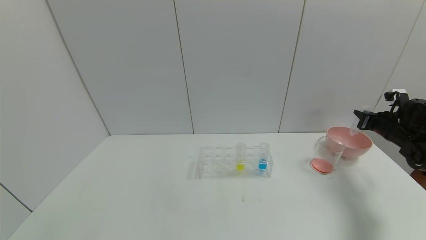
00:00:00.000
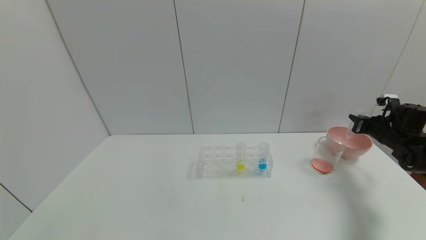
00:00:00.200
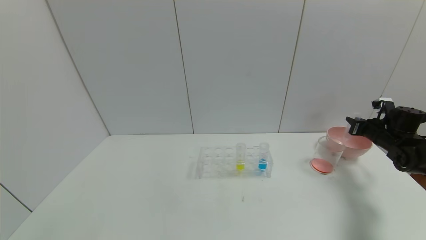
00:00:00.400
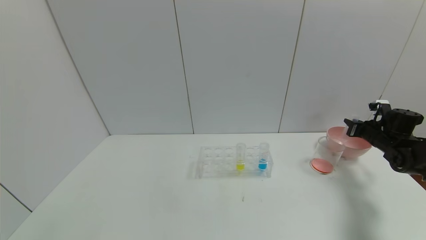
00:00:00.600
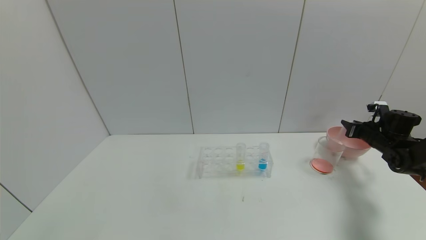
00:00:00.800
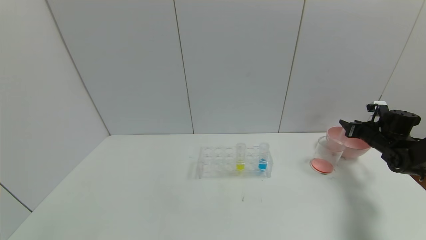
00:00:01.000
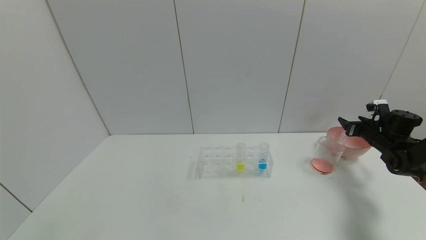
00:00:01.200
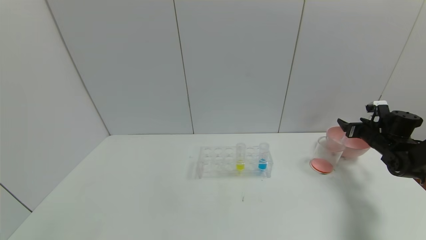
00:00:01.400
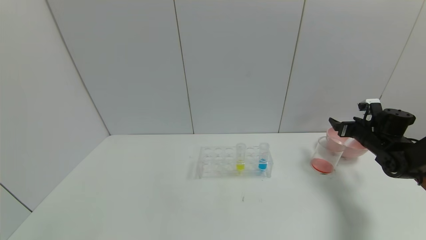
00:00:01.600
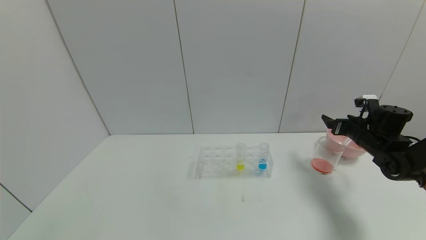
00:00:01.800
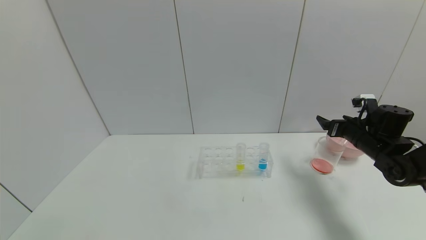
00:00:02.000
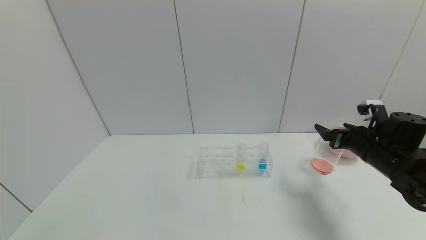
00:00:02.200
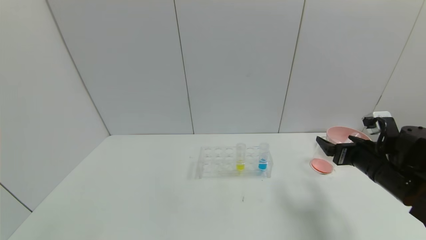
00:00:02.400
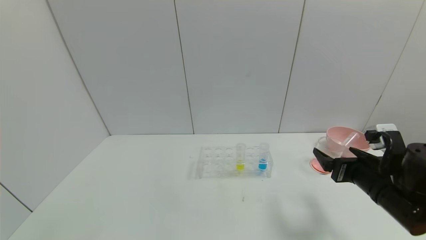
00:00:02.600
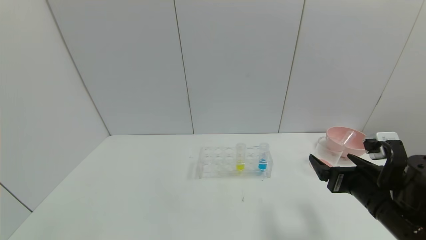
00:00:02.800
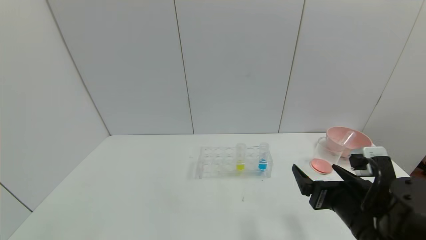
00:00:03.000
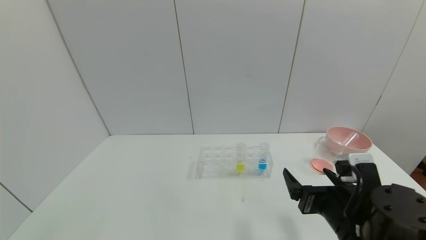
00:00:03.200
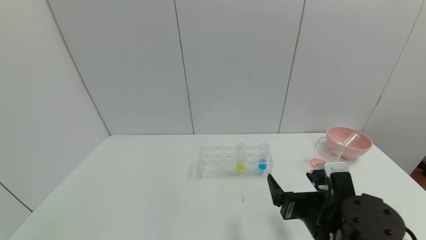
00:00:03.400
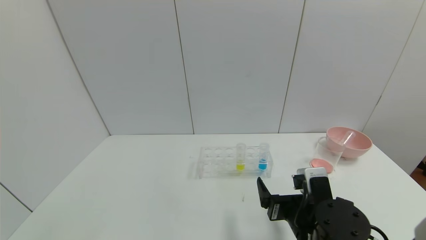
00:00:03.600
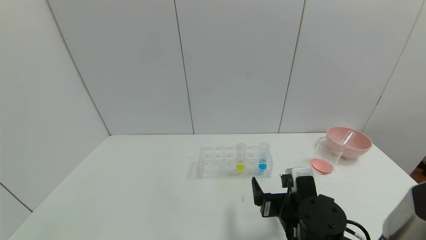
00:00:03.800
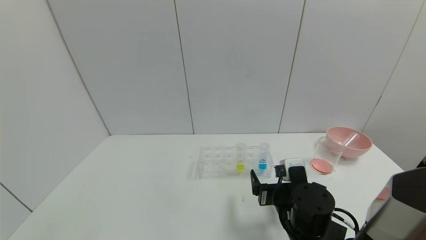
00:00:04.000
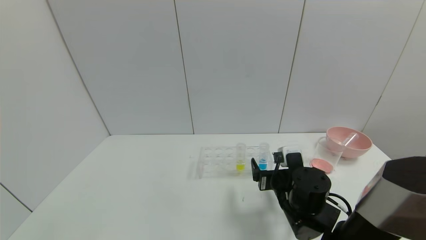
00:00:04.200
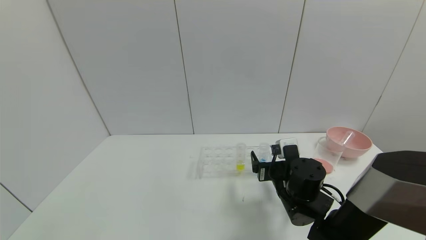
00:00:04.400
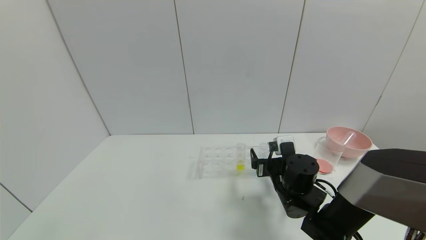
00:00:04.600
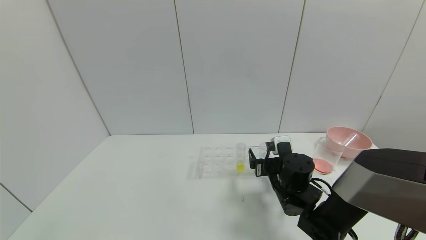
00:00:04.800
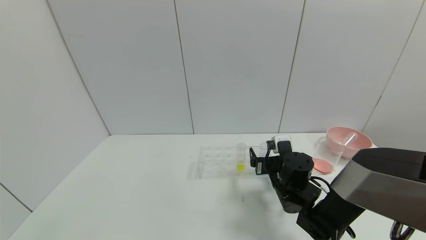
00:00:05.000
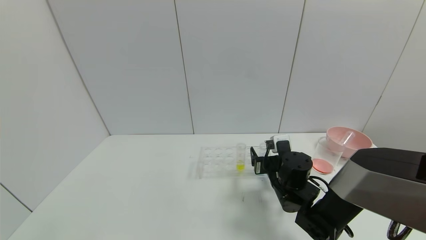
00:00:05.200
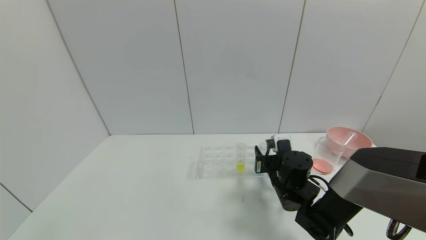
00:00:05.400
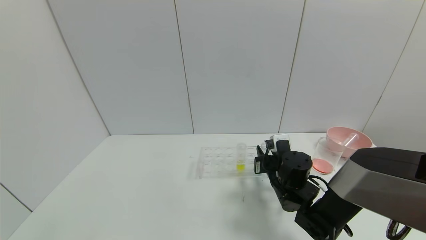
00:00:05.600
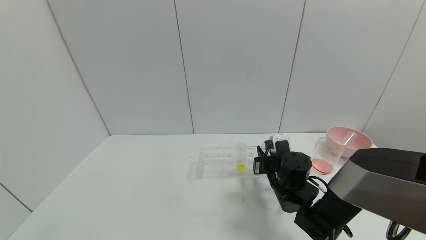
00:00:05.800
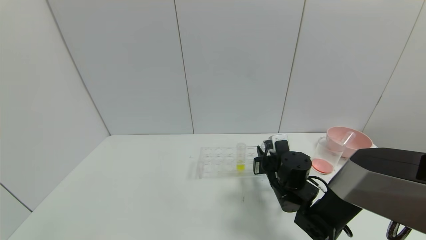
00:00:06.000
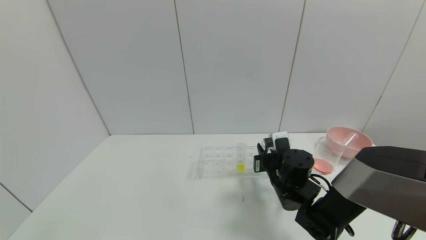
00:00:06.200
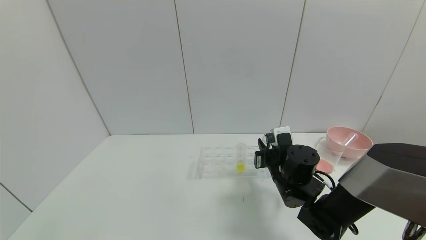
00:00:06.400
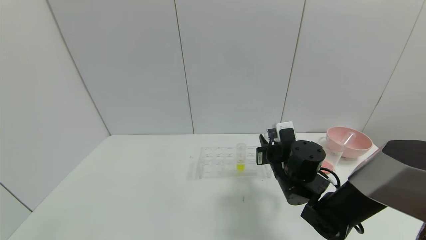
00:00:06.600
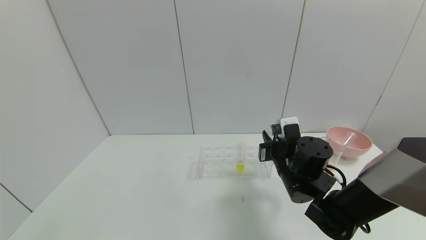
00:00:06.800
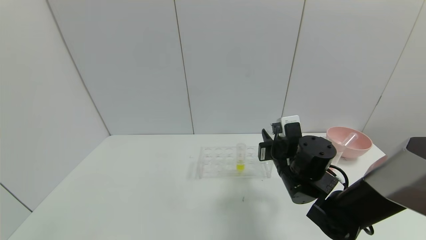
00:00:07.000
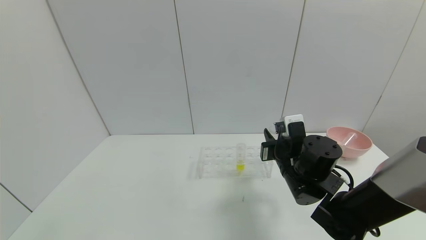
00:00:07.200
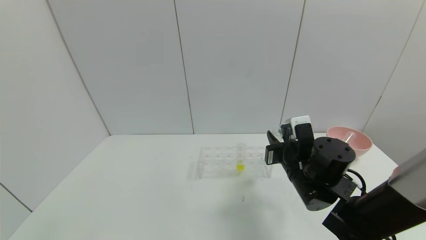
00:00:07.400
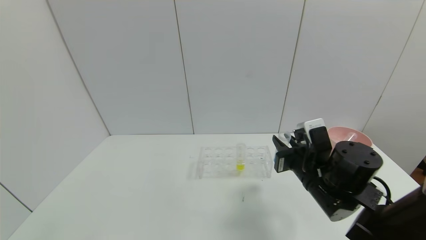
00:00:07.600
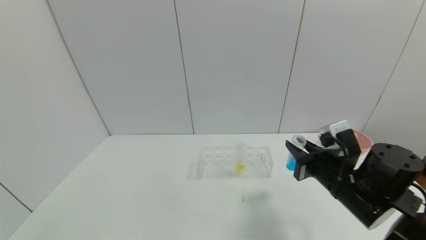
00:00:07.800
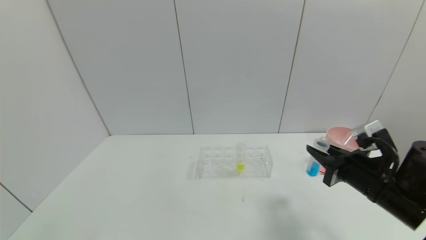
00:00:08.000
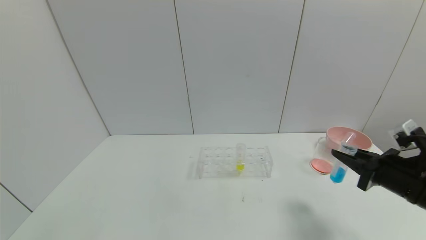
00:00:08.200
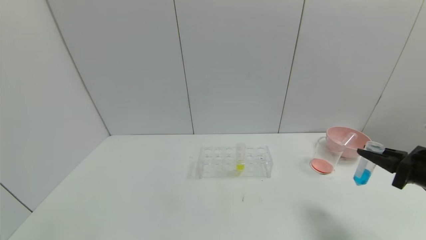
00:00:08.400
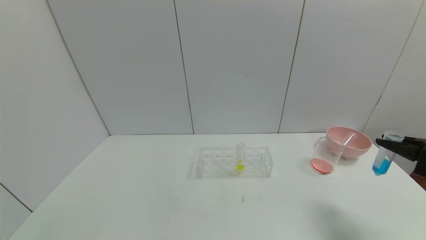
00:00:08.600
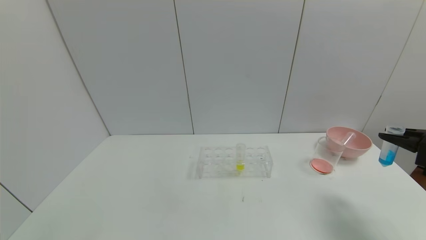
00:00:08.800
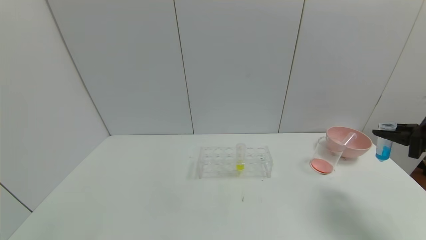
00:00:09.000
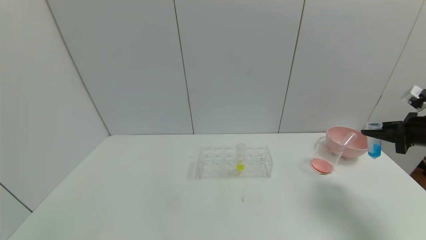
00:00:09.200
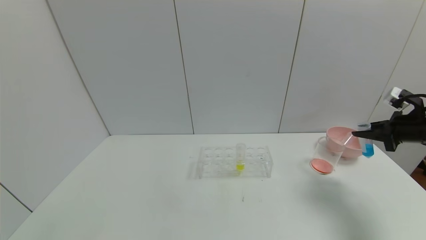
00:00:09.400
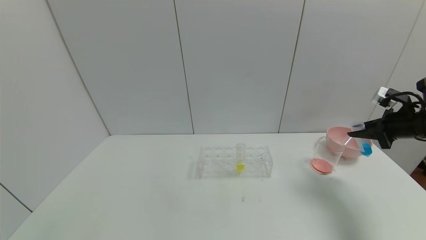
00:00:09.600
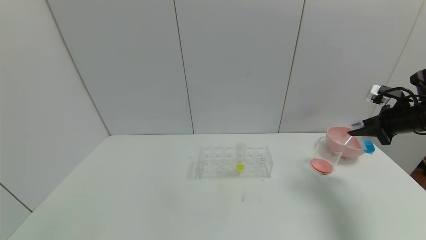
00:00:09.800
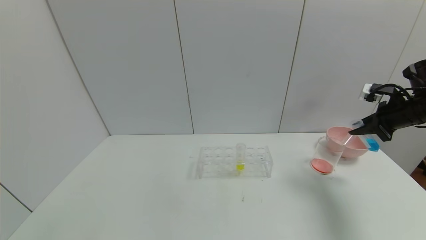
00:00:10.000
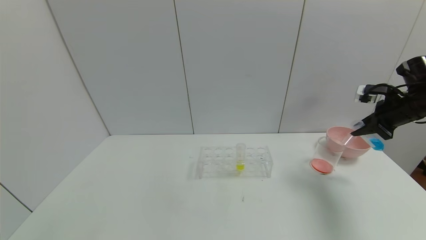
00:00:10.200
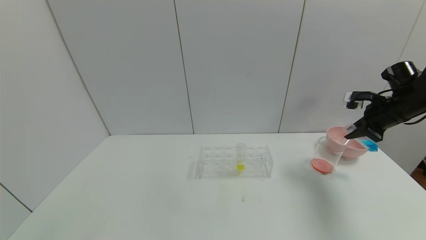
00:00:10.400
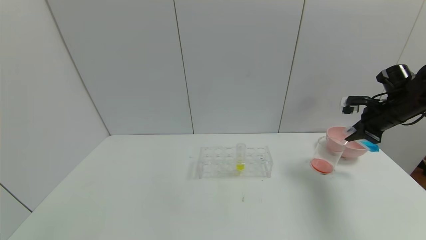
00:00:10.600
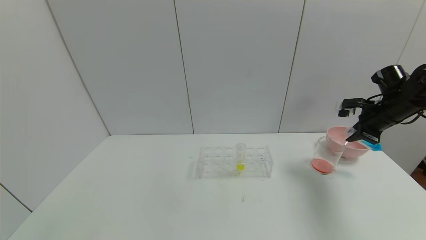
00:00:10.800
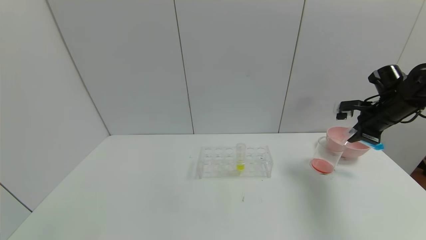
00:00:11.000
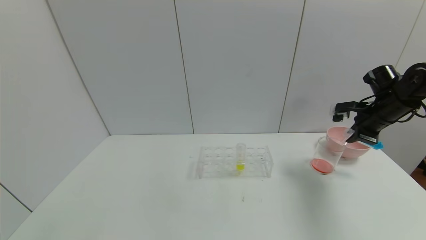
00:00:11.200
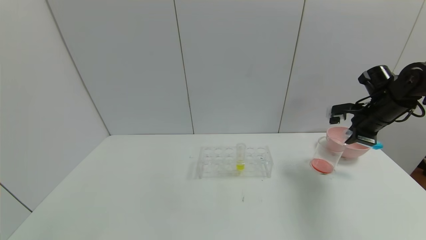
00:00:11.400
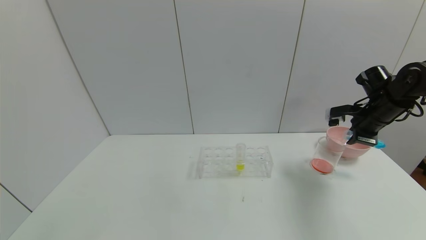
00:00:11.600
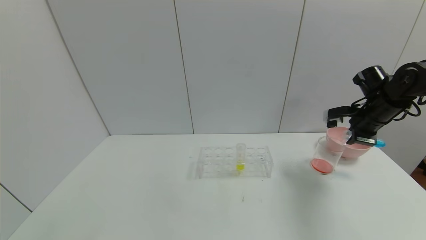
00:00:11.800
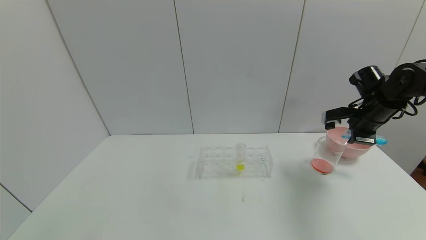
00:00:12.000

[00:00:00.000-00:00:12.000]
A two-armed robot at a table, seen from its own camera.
Task of the whole recording: pick up the test tube with red pigment and the test tube with blue pigment by grippers and pour them into the container.
Step, 00:00:00.000 to 00:00:03.000: Place the test tube into the bowl with right gripper.
Step, 00:00:03.200 to 00:00:07.800: Pick up the test tube containing the blue reagent with right gripper.
00:00:00.000 to 00:00:01.600: The right gripper ends up roughly 5 cm from where it was, and opens up.
00:00:01.600 to 00:00:03.000: The right gripper shifts approximately 30 cm backward and to the left.
00:00:03.000 to 00:00:04.400: The right gripper moves forward, to the left and downward, some 15 cm.
00:00:04.400 to 00:00:06.000: The right gripper closes.
00:00:06.000 to 00:00:07.600: The right gripper shifts roughly 10 cm upward and backward.
00:00:07.600 to 00:00:09.000: The right gripper heads to the right, covering some 25 cm.
00:00:09.000 to 00:00:10.400: The right gripper moves forward, roughly 10 cm.
00:00:10.400 to 00:00:12.000: The right gripper heads to the left, covering about 5 cm.

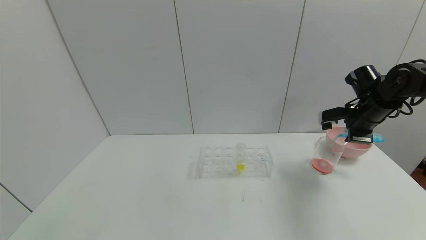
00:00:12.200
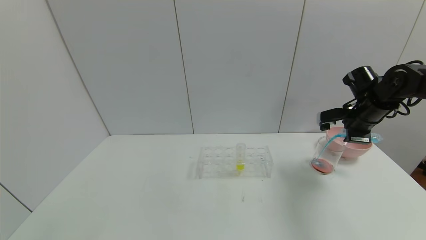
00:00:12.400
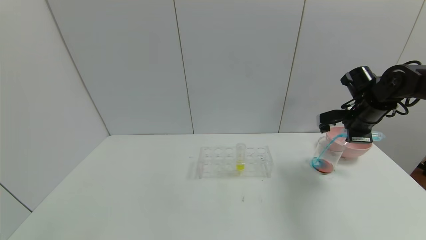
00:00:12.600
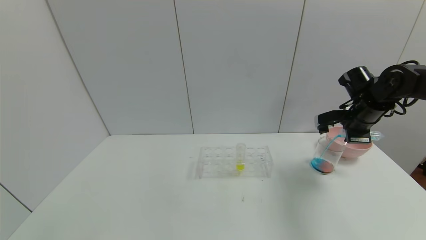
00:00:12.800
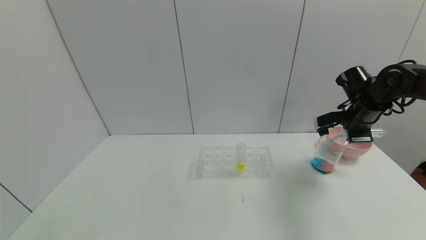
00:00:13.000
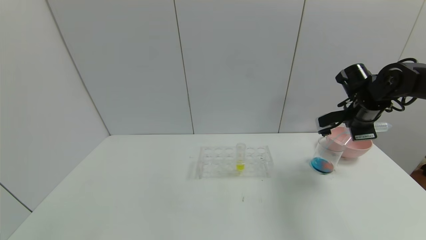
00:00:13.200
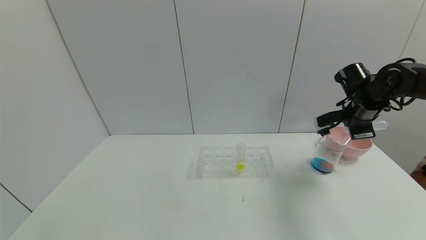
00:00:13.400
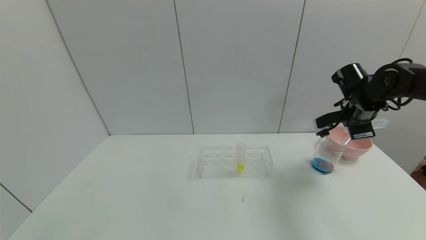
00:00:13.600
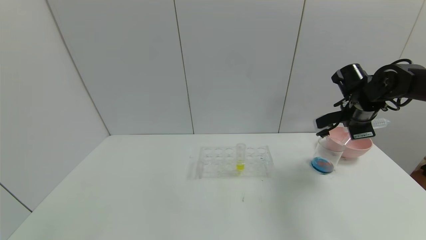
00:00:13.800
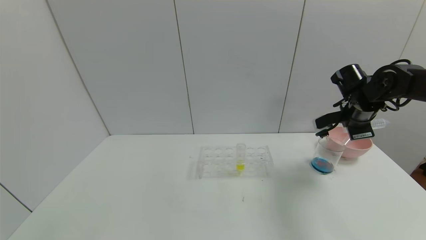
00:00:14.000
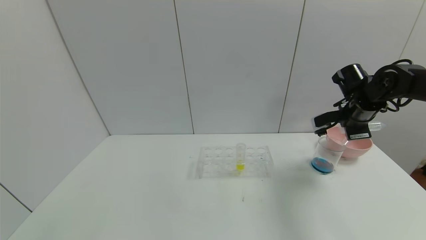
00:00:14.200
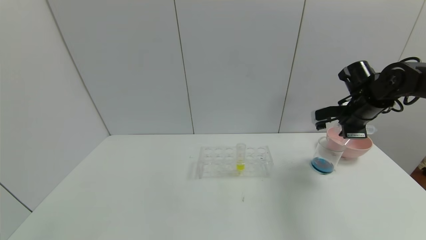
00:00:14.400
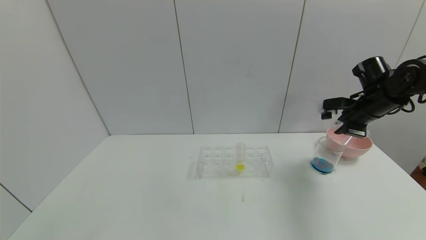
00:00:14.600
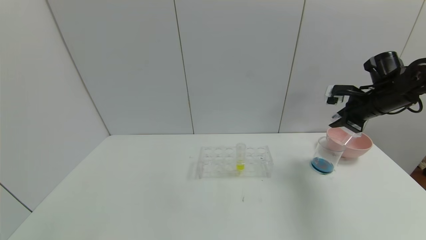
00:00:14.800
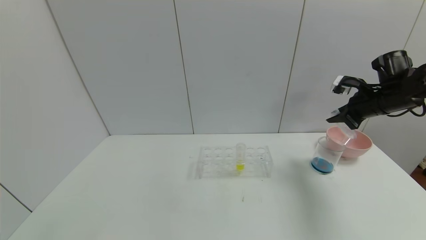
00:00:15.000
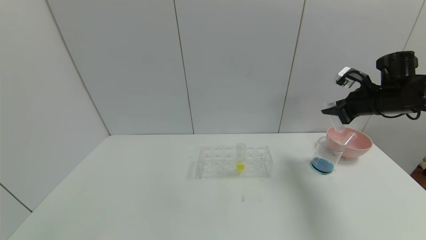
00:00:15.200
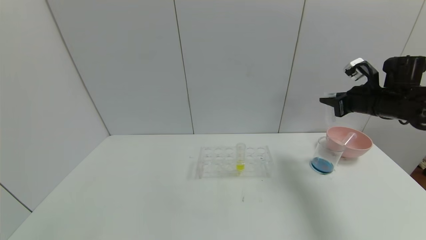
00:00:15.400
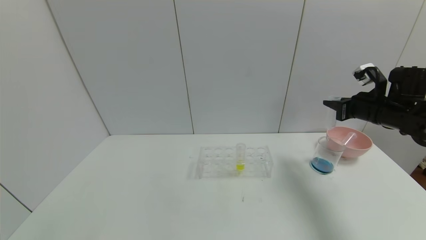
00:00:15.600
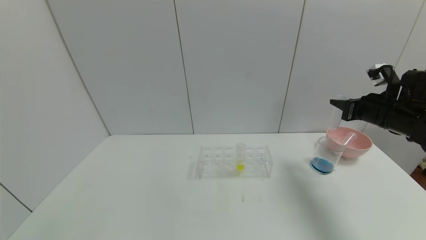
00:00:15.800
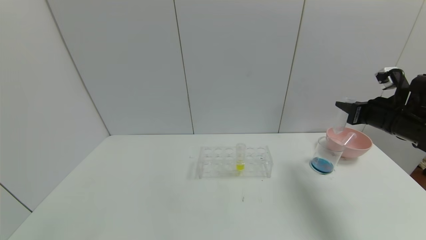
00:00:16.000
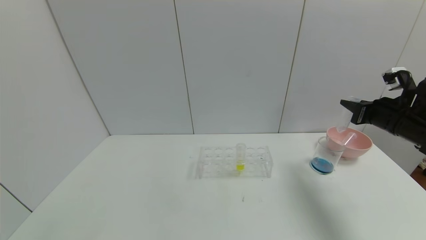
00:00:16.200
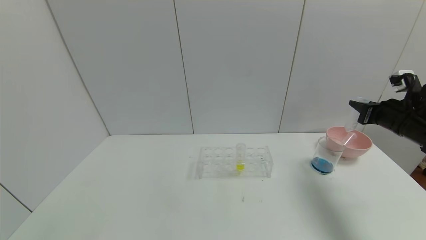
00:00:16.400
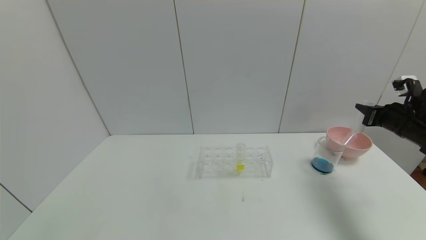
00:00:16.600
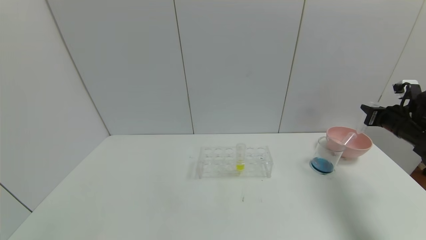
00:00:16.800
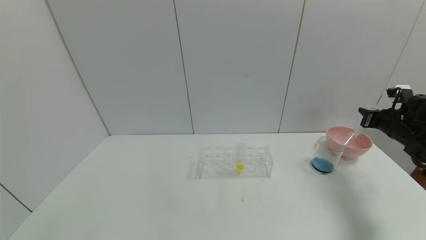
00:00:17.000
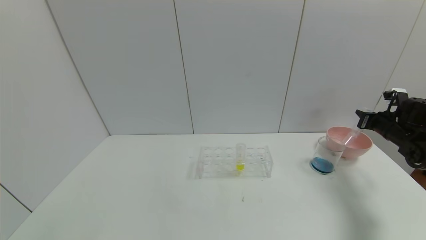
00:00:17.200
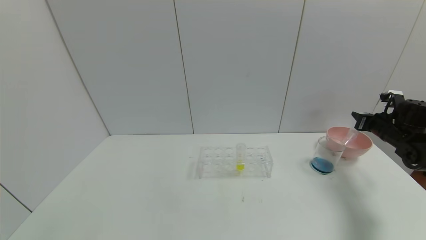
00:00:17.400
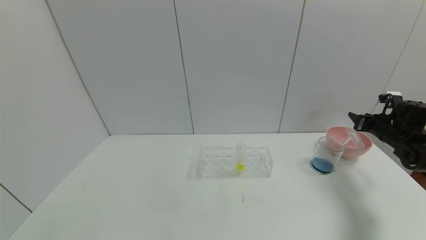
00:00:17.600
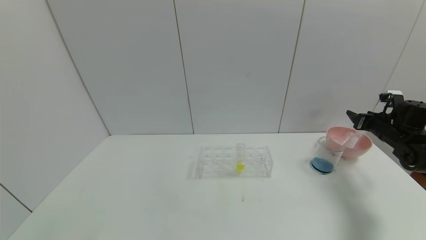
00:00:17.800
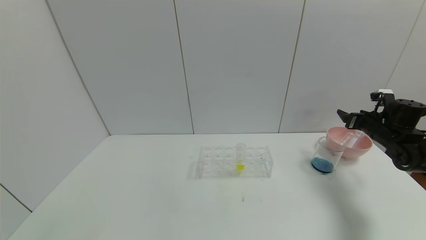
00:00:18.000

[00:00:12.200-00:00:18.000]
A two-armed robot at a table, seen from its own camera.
Task of the whole recording: pick up the test tube with red pigment and the test tube with blue pigment by grippers and pour them into the container.
Step, 00:00:12.200 to 00:00:16.600: Pour the blue reagent into the graduated cylinder with right gripper.
00:00:13.600 to 00:00:15.000: The right gripper ends up about 5 cm from where it was.
00:00:15.000 to 00:00:16.600: The right gripper moves to the right, roughly 5 cm.
00:00:16.600 to 00:00:18.000: The right gripper is displaced forward by approximately 5 cm, and opens.
